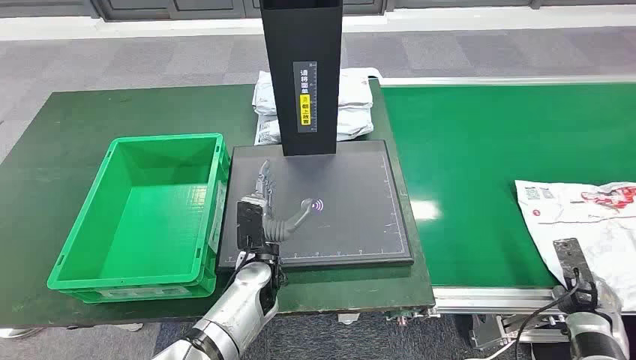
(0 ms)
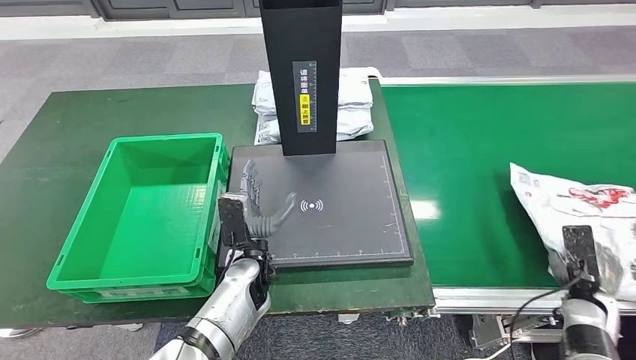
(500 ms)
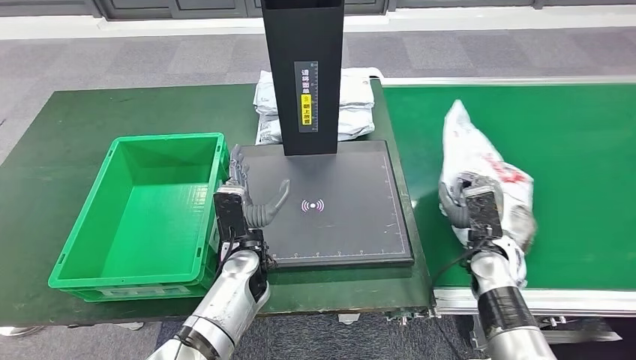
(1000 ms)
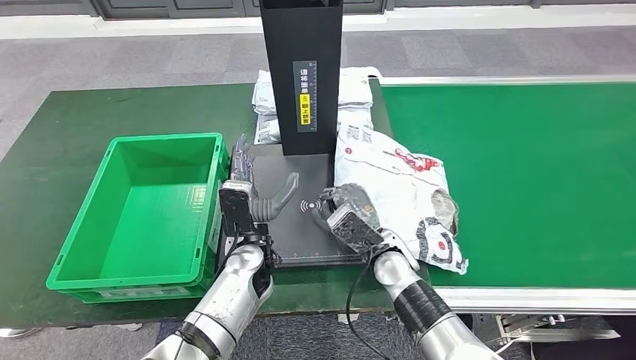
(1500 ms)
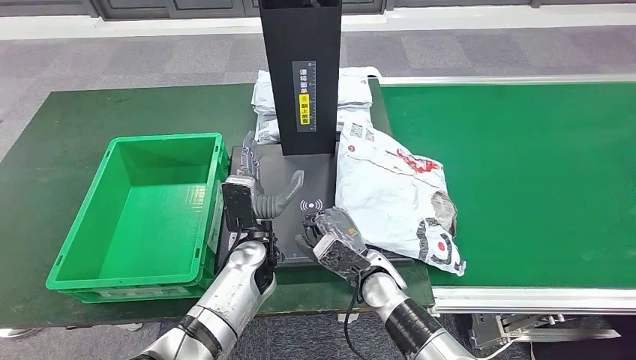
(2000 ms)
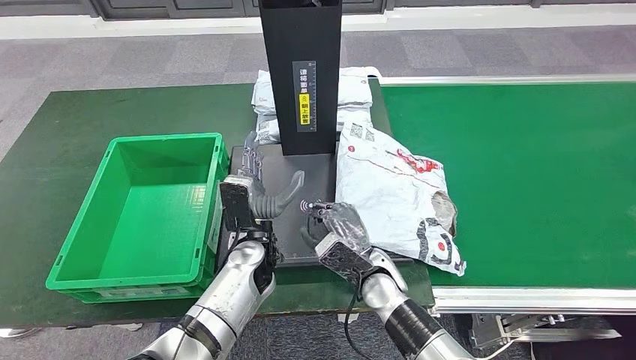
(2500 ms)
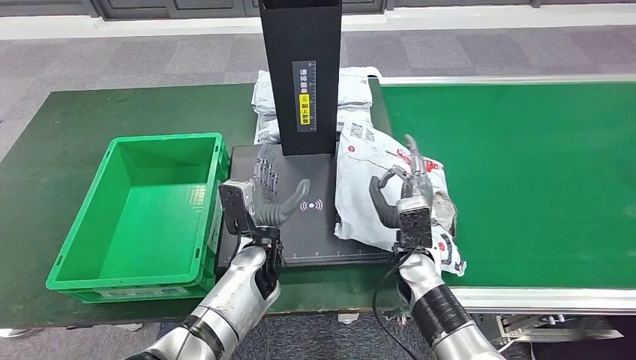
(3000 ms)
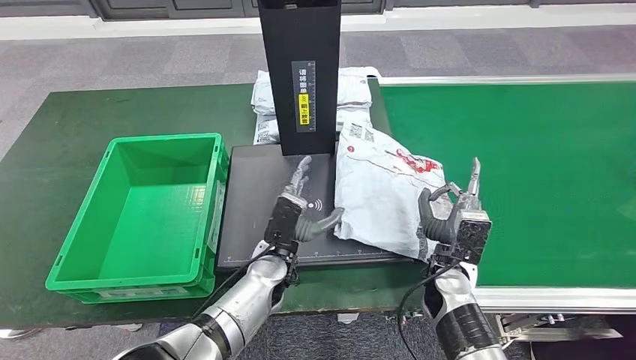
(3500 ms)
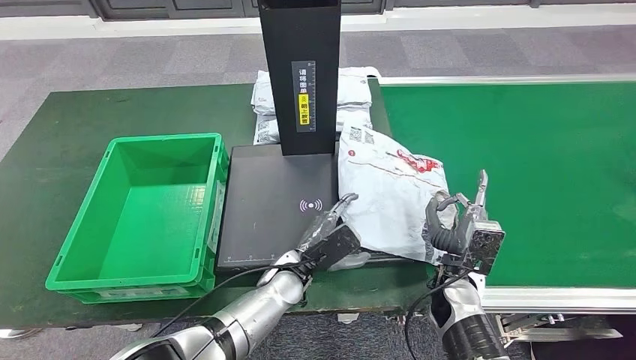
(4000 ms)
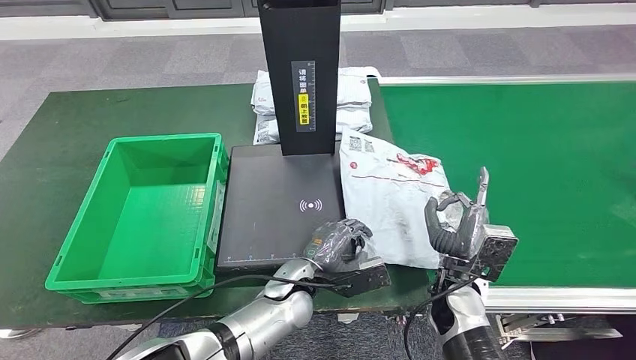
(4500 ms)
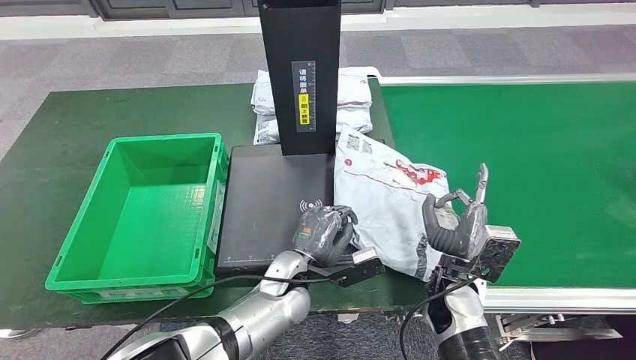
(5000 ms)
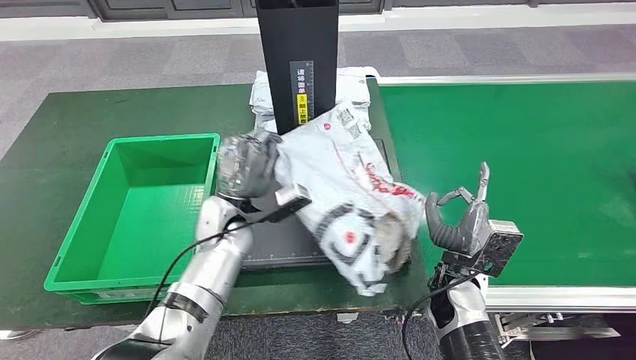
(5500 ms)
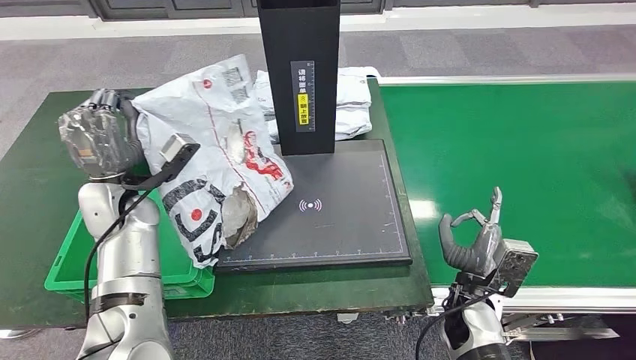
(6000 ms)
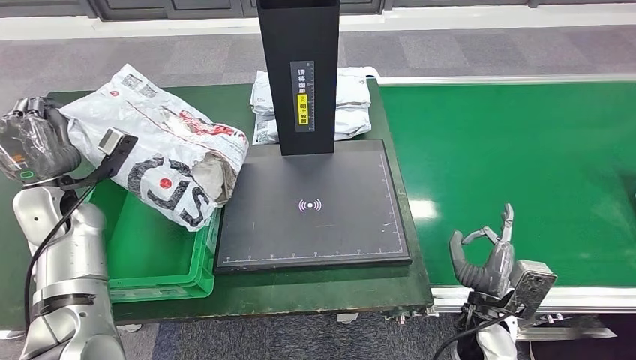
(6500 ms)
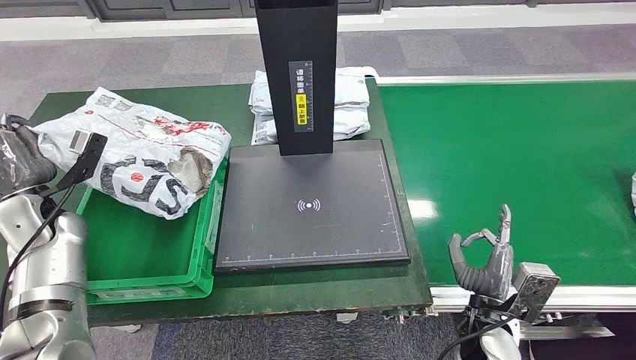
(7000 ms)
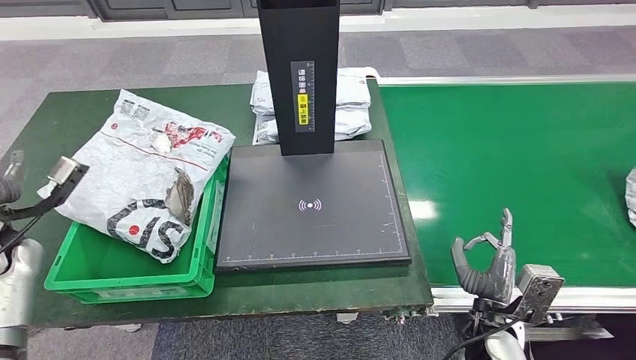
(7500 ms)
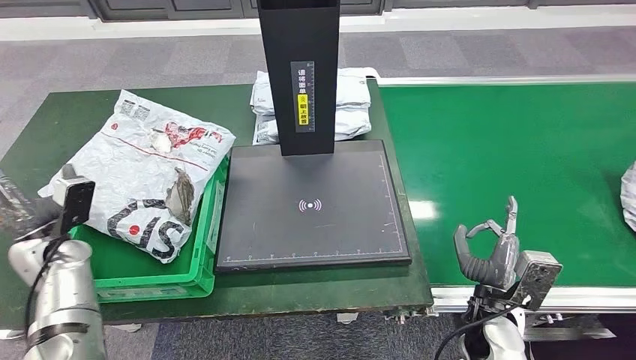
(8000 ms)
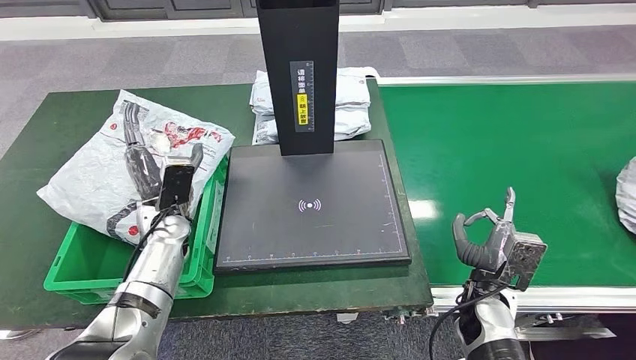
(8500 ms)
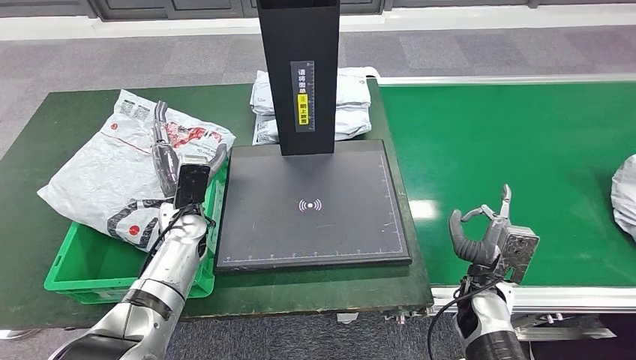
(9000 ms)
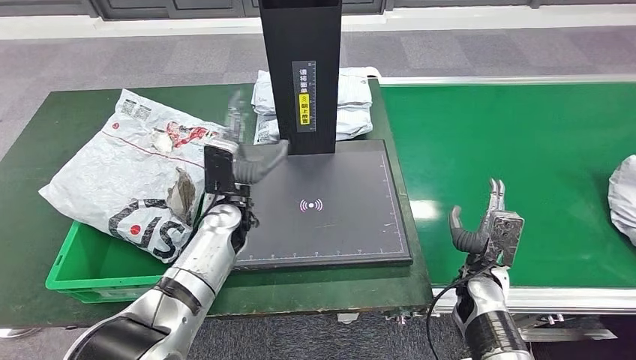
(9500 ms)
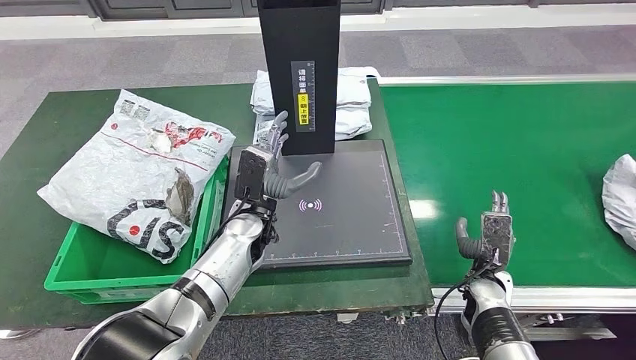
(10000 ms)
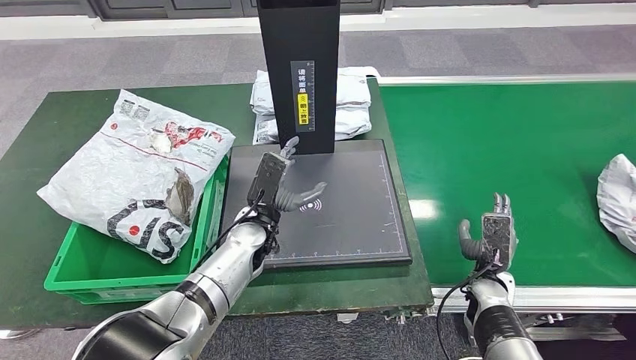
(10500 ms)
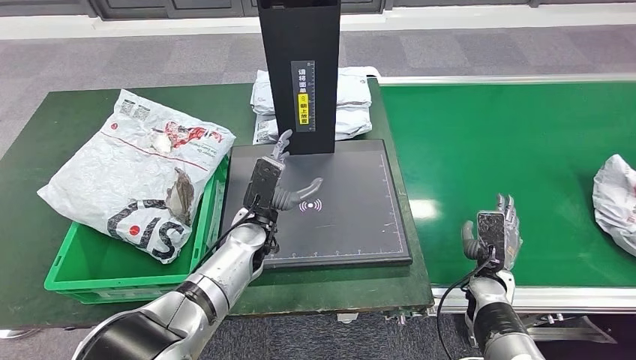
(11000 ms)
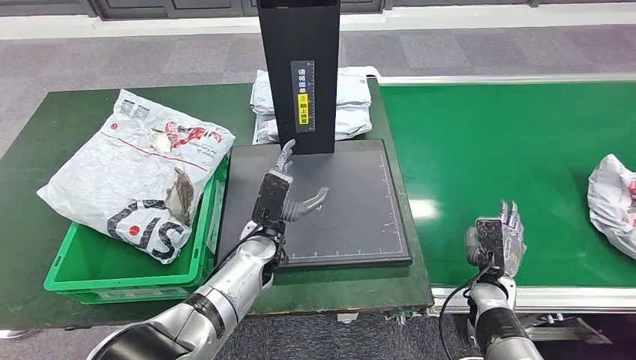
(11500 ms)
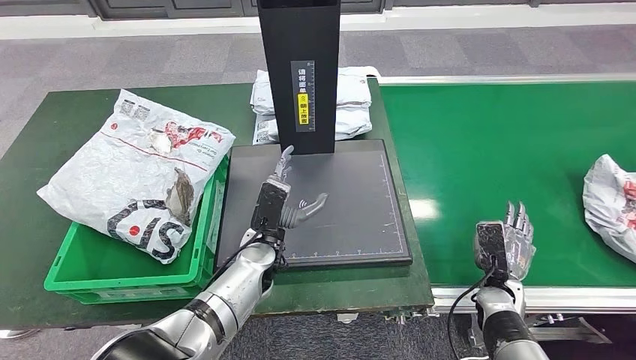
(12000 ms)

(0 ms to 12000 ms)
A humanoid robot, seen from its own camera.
Step, 0 ms - 500 ms: Take the parcel off the conveyor belt.
Step, 2500 ms - 5500 ms: Pick up the parcel from the inbound machine.
Step, 6000 ms - 8500 ms: Put the parcel inside the courier box.
2000 ms - 4000 ms: The left hand ends up about 5 cm from where it was; the right hand heads to the right, covering approximately 15 cm.
8000 ms - 10000 ms: The right hand travels forward by roughly 5 cm; the left hand is displaced to the right by roughly 30 cm.
10000 ms - 12000 ms: The left hand changes place by roughly 5 cm.

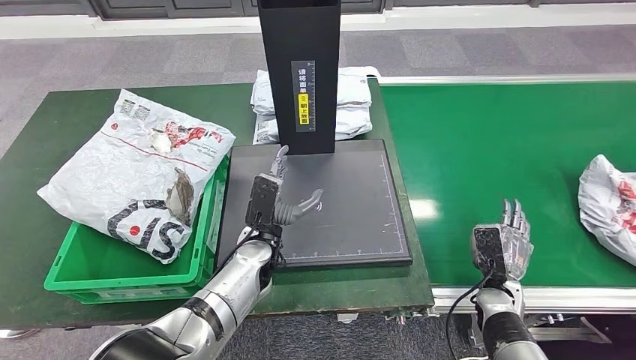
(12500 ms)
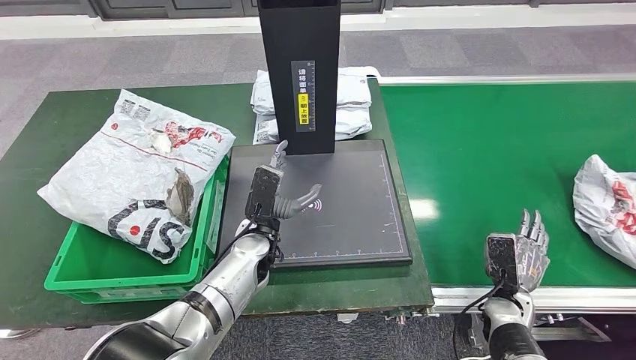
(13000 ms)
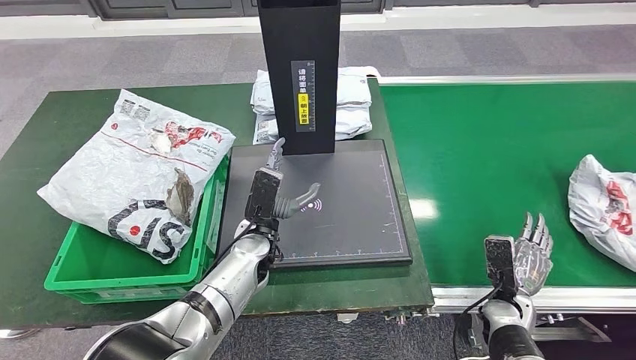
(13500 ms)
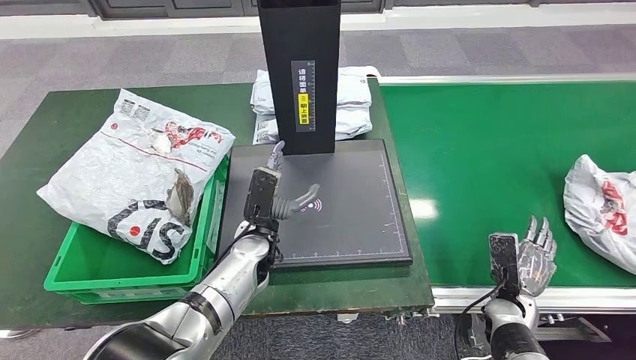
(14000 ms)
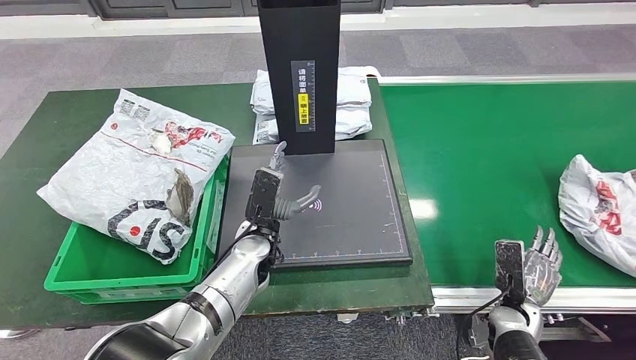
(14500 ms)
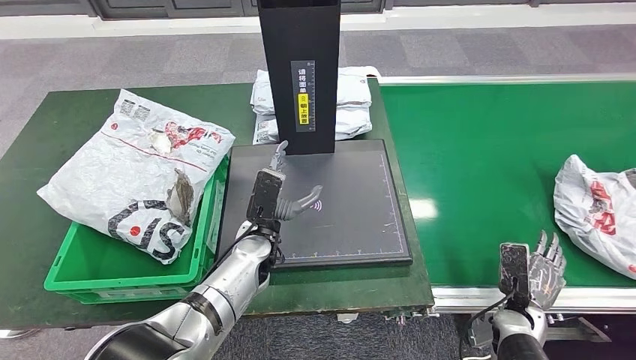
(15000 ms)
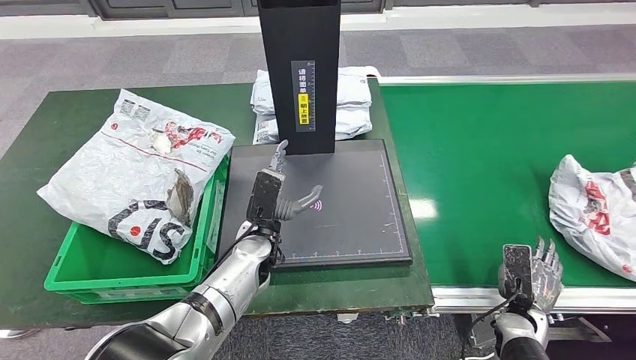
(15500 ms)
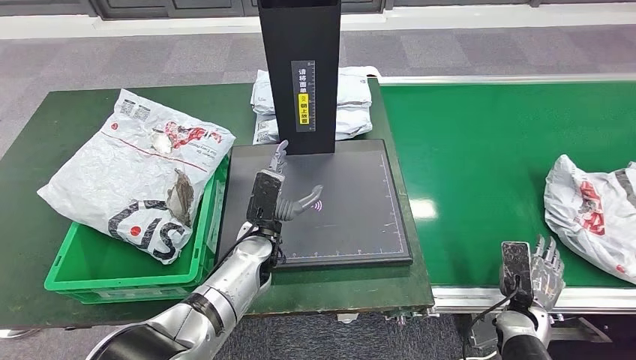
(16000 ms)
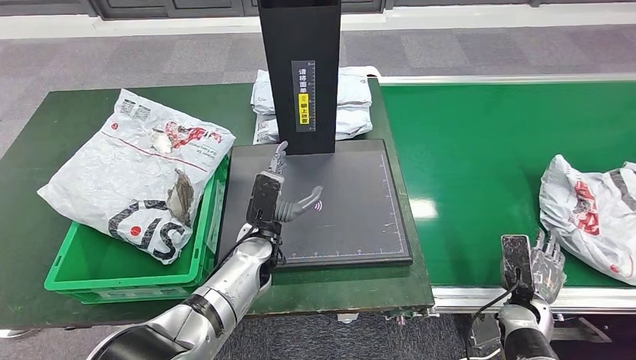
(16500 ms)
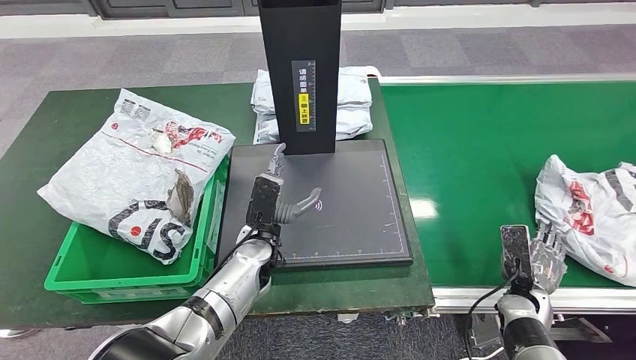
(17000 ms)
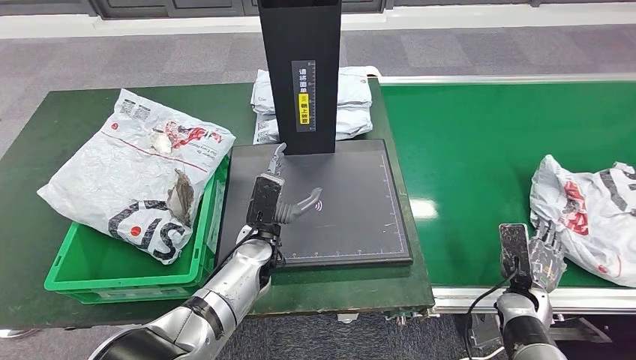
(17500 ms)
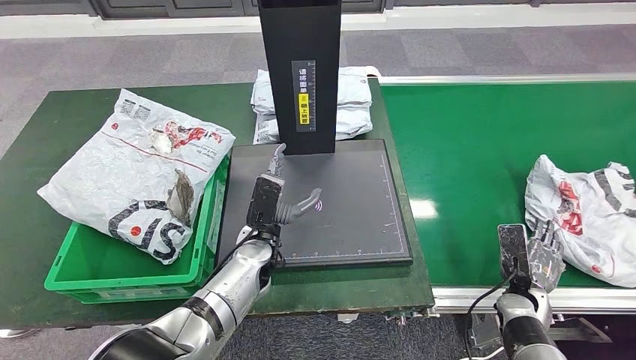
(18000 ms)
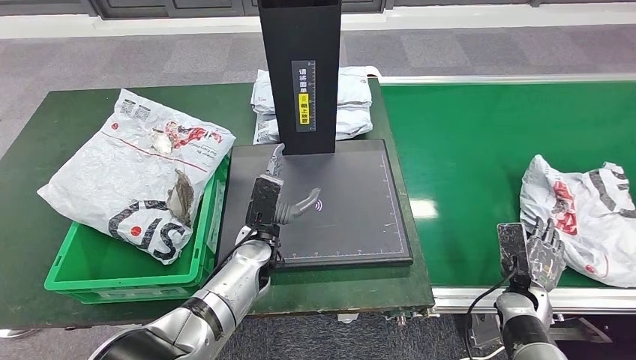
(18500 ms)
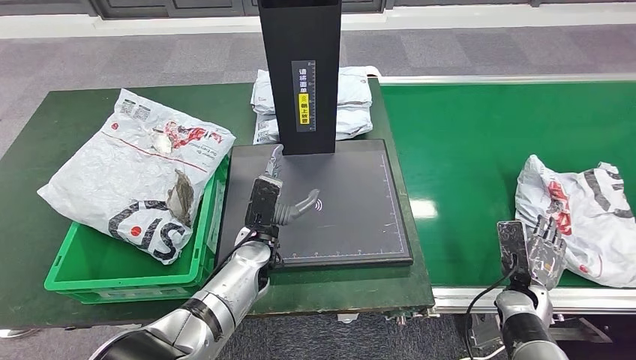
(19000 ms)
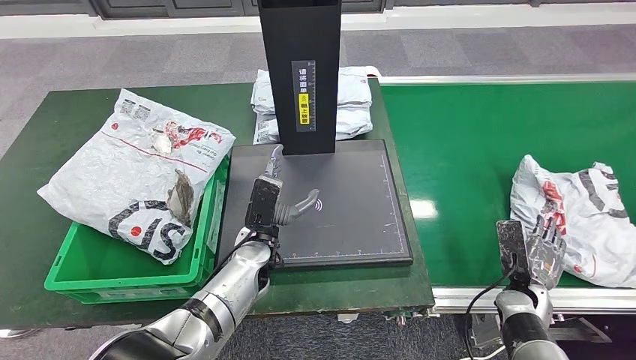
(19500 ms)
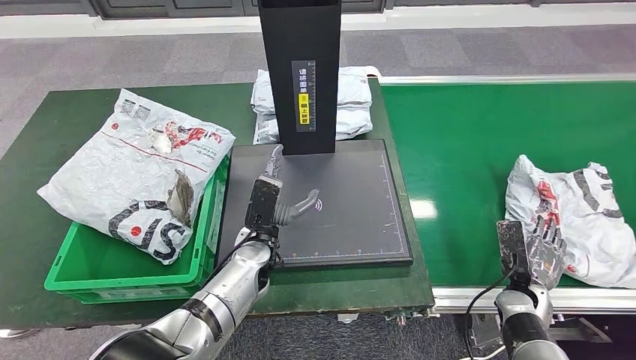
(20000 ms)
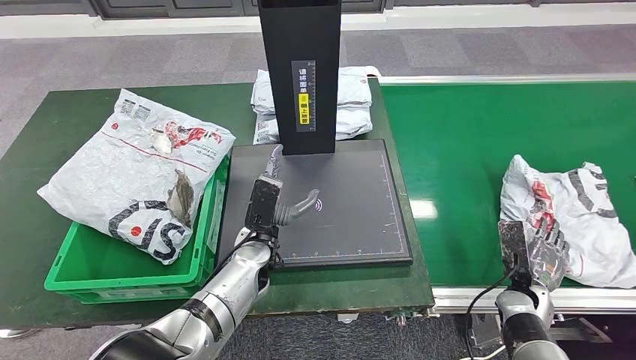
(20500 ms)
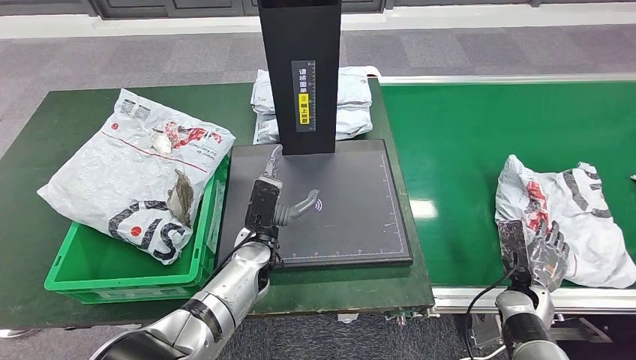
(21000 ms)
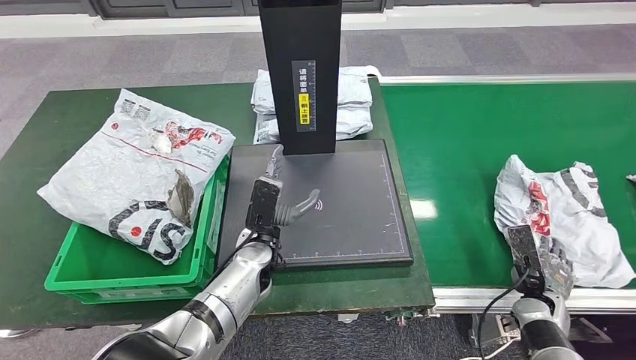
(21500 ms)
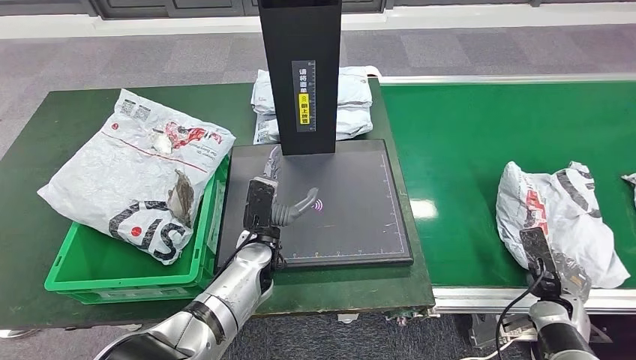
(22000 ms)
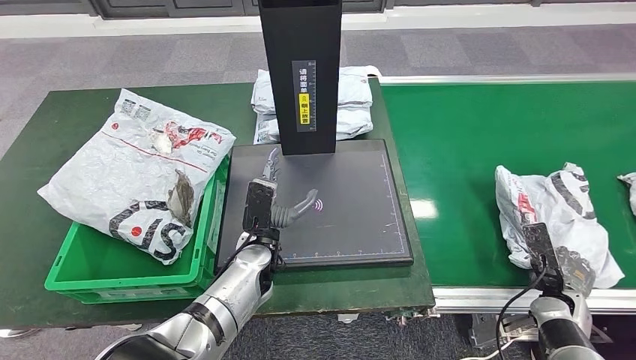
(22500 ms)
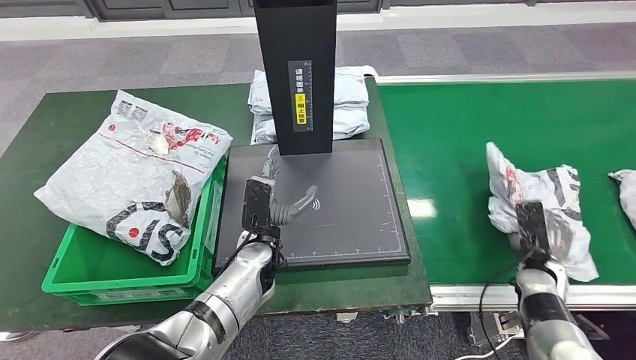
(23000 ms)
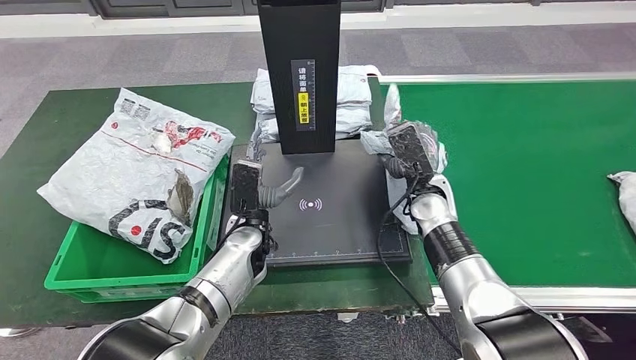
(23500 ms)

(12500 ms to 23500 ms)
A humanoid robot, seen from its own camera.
Step, 12500 ms - 23500 ms: Pick up the parcel from the conveyor belt.
12500 ms - 18000 ms: The hands make only small movements.
18000 ms - 20000 ms: The two hands keep their place.
20000 ms - 21500 ms: The hands make only small movements.
